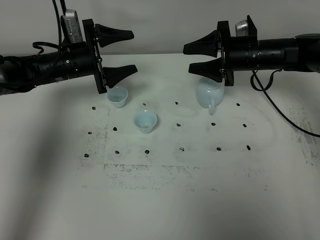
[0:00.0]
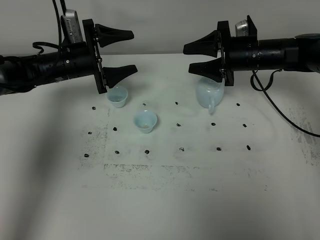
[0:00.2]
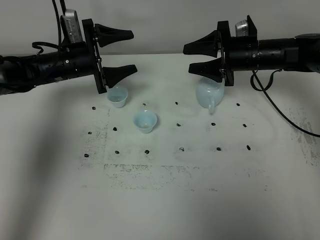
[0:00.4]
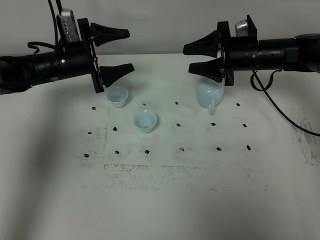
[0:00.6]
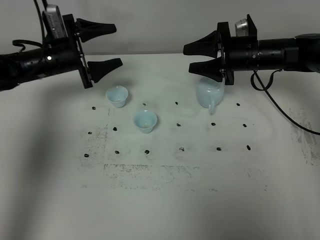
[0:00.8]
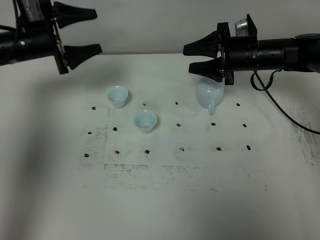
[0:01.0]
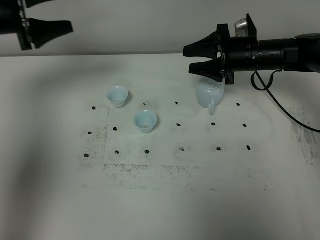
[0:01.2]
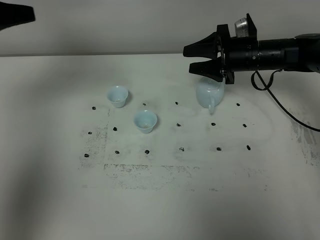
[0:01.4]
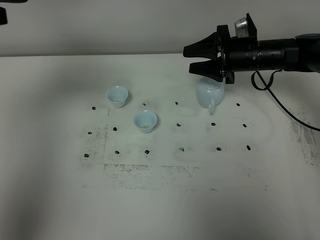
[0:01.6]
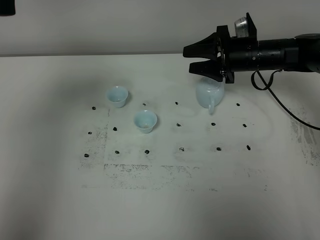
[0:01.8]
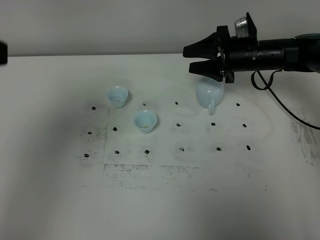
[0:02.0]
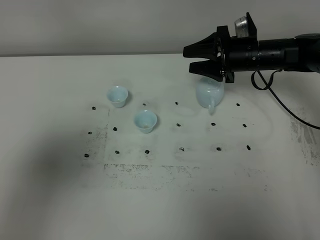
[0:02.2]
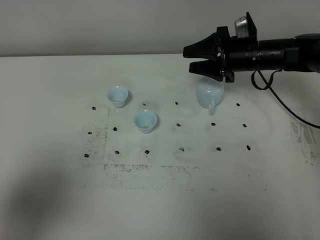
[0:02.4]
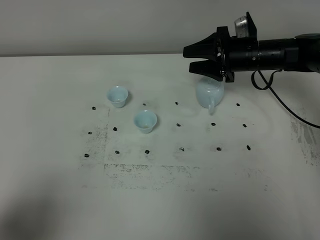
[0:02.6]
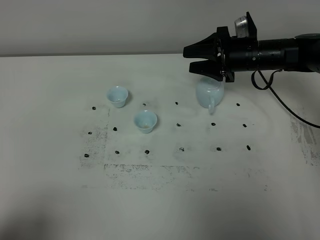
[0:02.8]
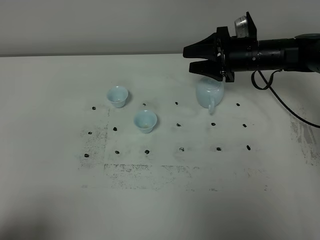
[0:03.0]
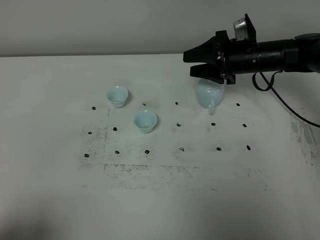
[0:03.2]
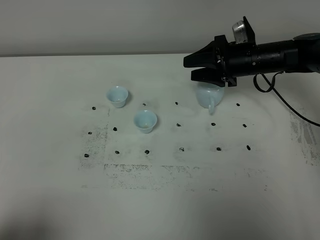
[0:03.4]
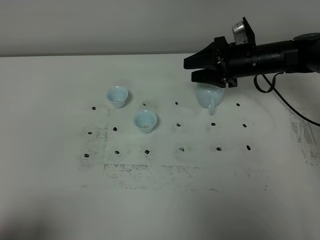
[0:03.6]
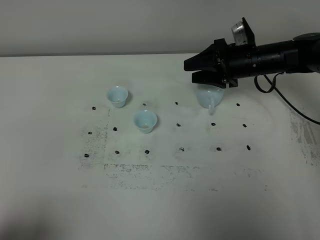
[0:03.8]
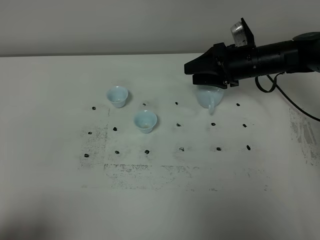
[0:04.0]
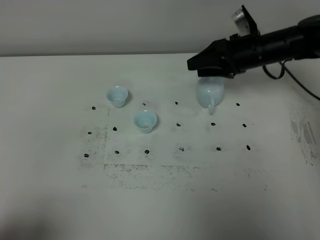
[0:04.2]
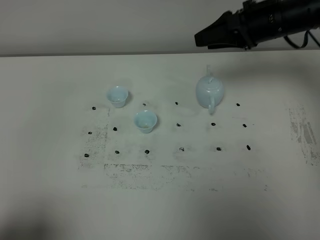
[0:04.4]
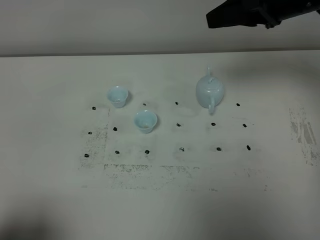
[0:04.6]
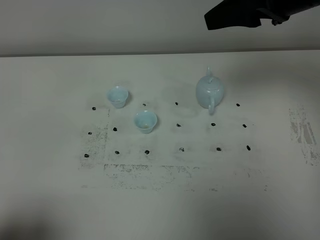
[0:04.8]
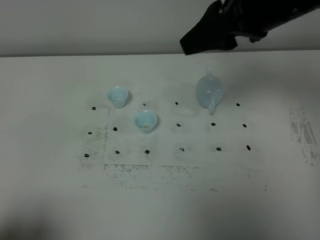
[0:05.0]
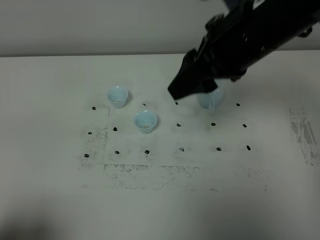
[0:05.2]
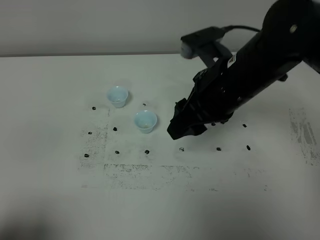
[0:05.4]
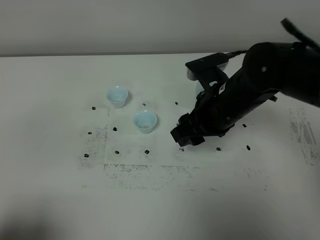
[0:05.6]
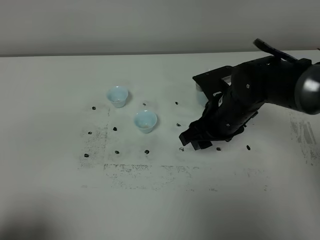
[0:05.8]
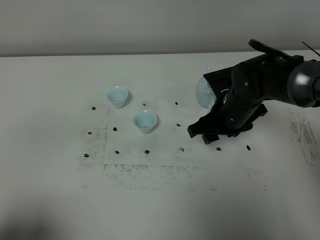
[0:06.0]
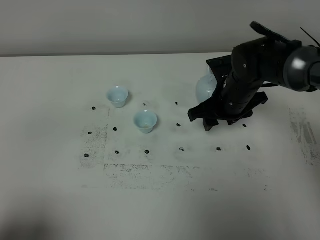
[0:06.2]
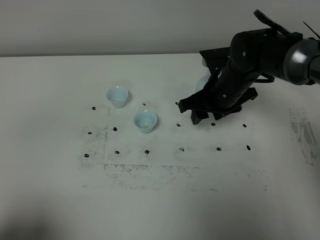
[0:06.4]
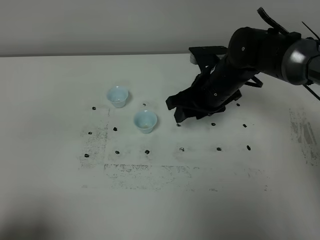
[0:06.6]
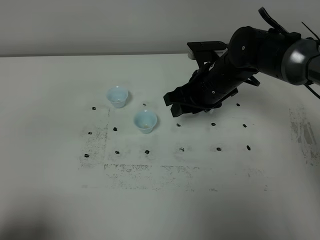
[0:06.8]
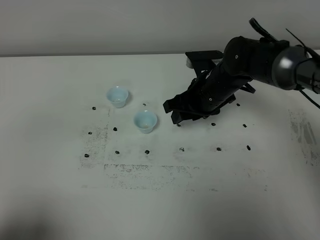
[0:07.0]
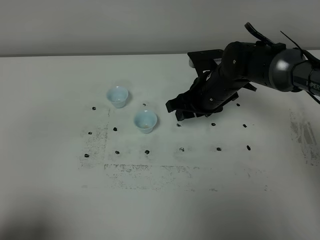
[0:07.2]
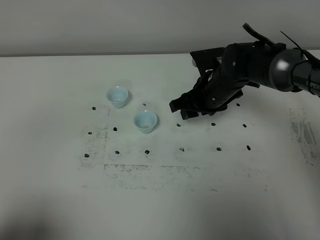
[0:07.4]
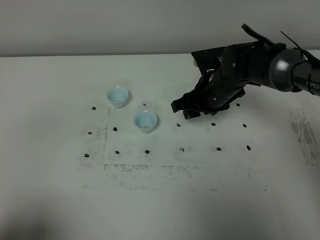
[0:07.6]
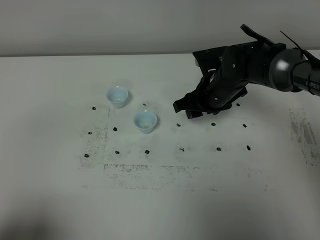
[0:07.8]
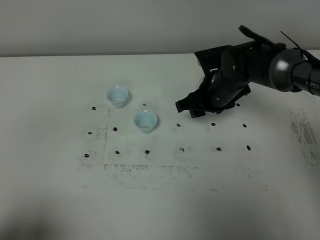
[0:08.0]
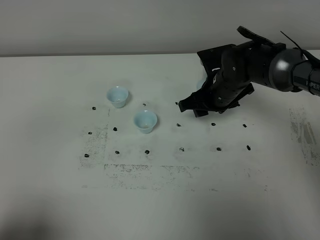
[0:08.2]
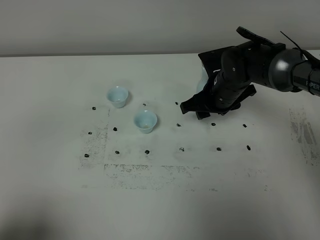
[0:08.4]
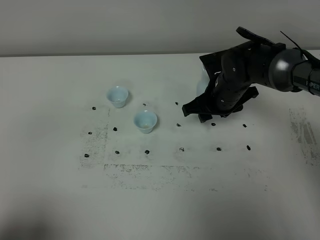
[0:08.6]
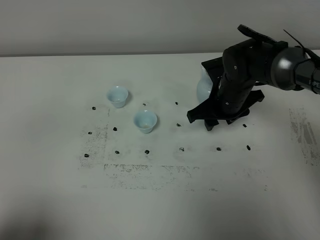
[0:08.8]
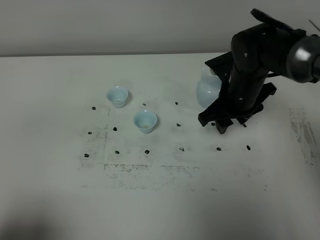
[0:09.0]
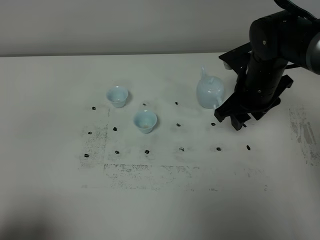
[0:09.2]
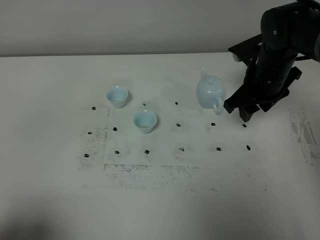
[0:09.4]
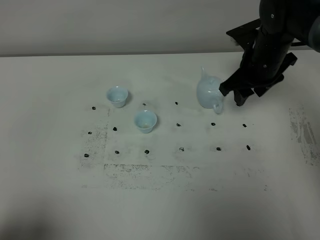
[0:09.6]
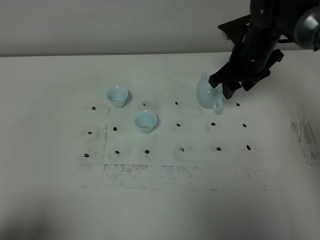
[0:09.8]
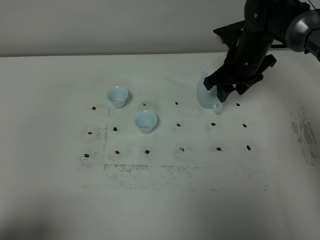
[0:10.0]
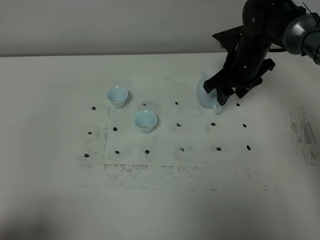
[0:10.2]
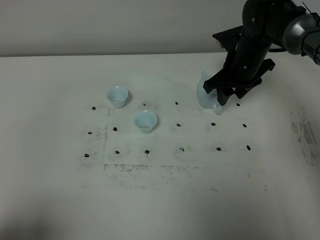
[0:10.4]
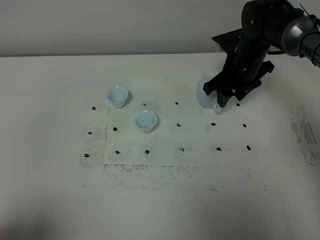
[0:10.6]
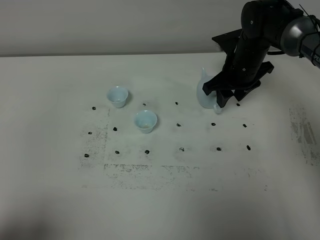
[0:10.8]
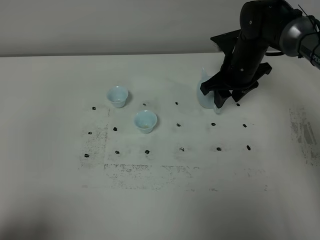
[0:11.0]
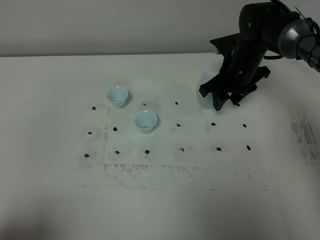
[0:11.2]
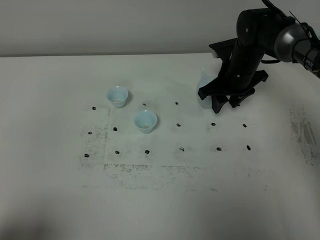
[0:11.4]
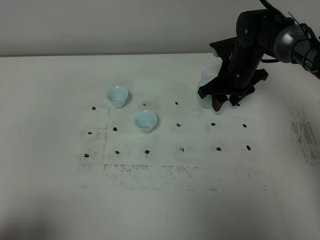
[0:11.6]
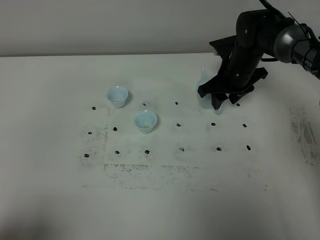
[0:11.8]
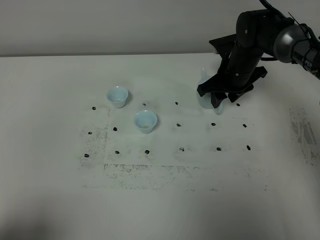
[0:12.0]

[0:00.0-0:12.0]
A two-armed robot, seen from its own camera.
Task of the whole recording: grasp the blue porcelain teapot and pour the tea into the two blue porcelain teacups one by one, put the blue porcelain teapot back in its original place.
0:00.0 to 0:01.6: The left gripper is displaced upward and backward by some 35 cm.
0:01.6 to 0:03.0: The left gripper shifts some 35 cm backward and downward.
0:03.0 to 0:04.4: The right gripper moves upward, roughly 15 cm.
0:04.4 to 0:06.0: The right gripper goes about 15 cm downward and to the left.
0:06.0 to 0:07.6: The right gripper shifts by some 5 cm.
0:07.6 to 0:09.0: The right gripper moves some 5 cm.
0:09.0 to 0:10.4: The right gripper travels forward by about 10 cm.
0:10.4 to 0:12.0: The grippers stay close to where they were, moving slightly.

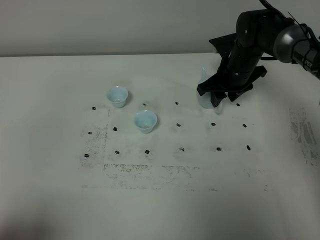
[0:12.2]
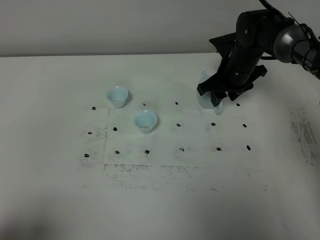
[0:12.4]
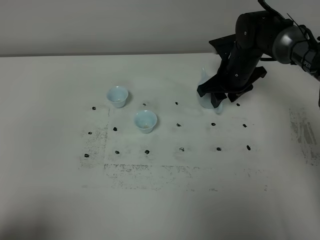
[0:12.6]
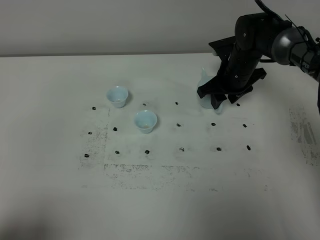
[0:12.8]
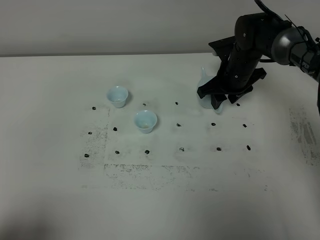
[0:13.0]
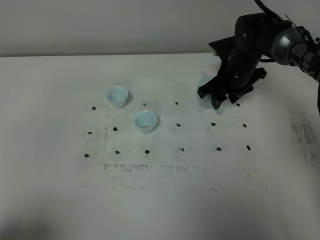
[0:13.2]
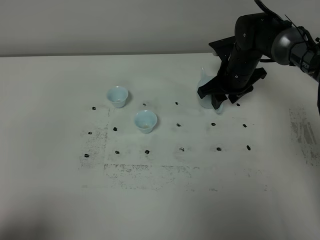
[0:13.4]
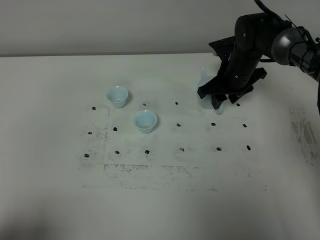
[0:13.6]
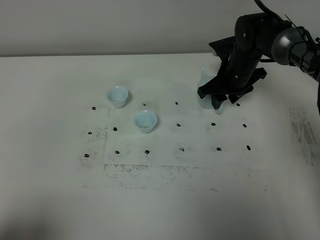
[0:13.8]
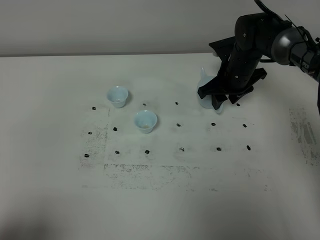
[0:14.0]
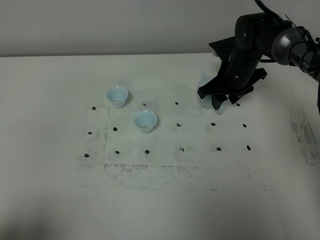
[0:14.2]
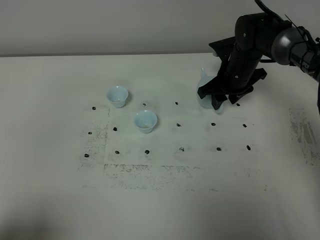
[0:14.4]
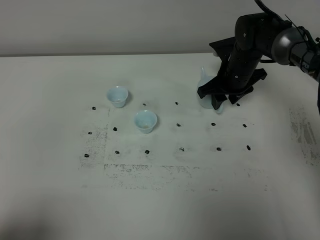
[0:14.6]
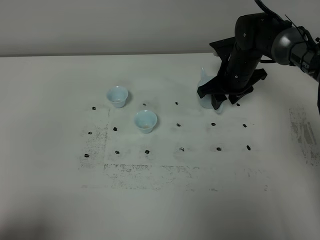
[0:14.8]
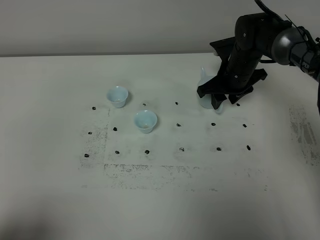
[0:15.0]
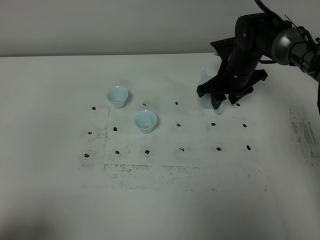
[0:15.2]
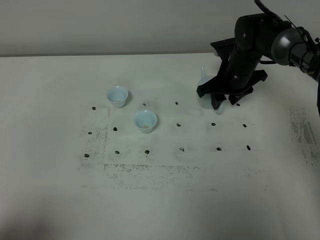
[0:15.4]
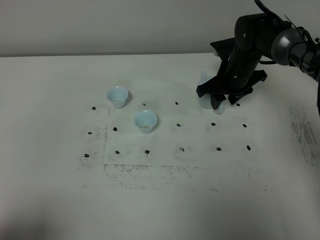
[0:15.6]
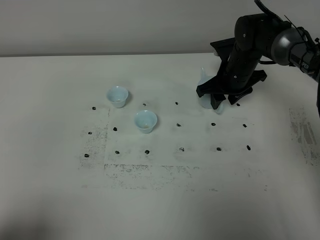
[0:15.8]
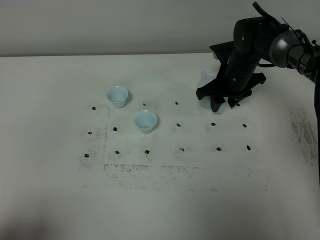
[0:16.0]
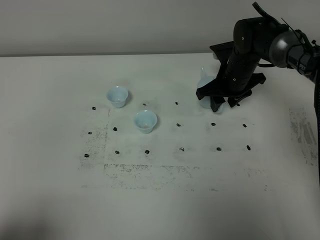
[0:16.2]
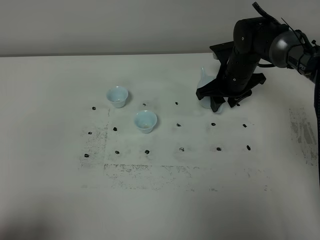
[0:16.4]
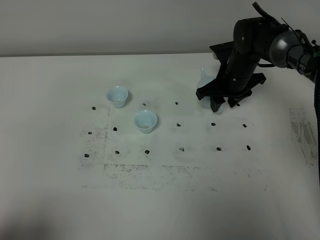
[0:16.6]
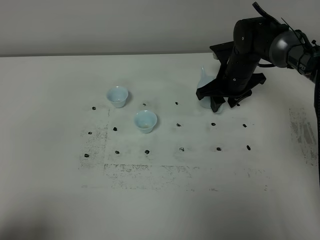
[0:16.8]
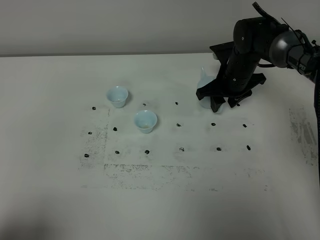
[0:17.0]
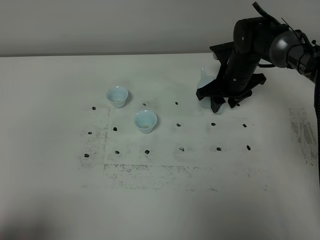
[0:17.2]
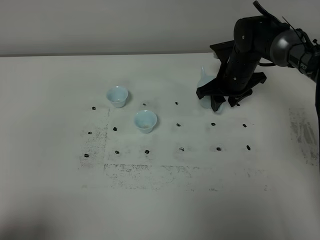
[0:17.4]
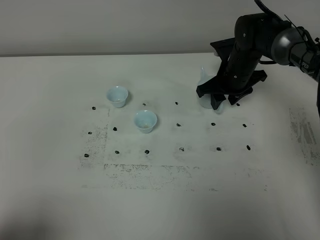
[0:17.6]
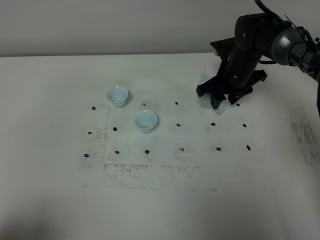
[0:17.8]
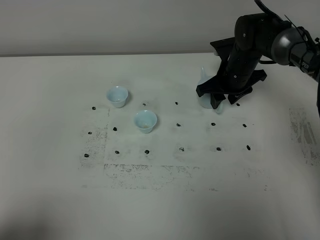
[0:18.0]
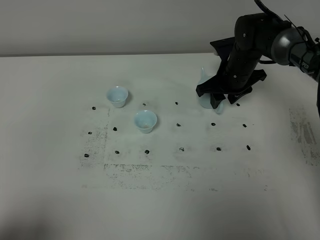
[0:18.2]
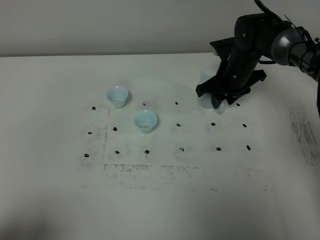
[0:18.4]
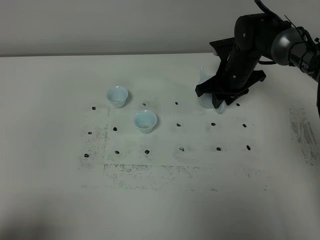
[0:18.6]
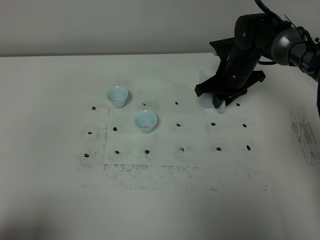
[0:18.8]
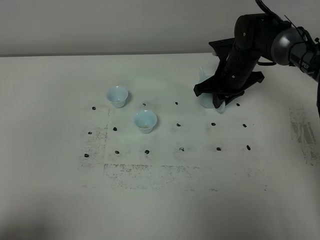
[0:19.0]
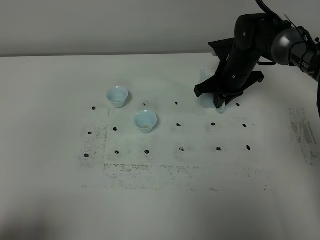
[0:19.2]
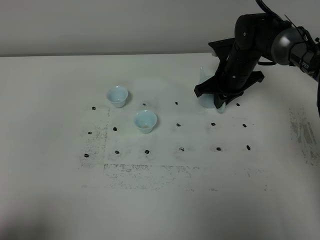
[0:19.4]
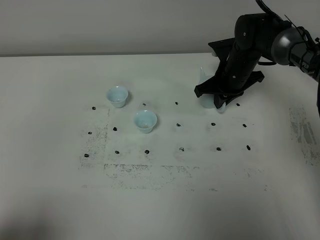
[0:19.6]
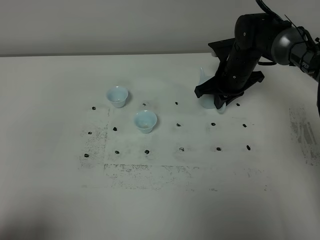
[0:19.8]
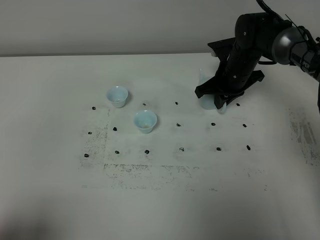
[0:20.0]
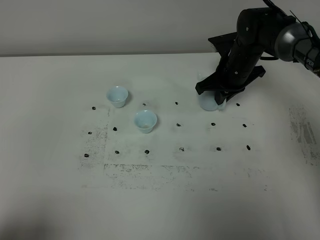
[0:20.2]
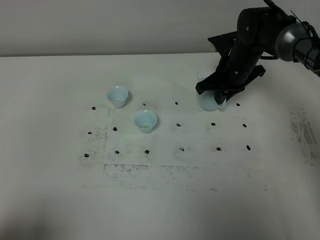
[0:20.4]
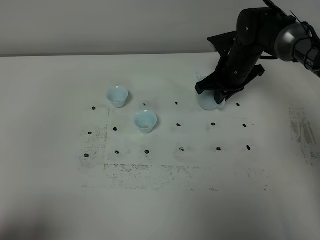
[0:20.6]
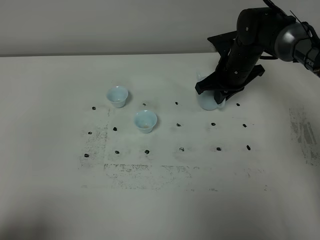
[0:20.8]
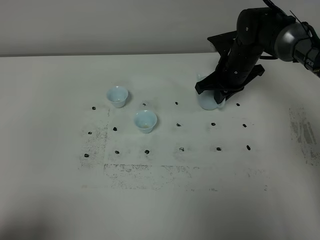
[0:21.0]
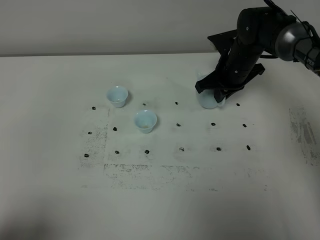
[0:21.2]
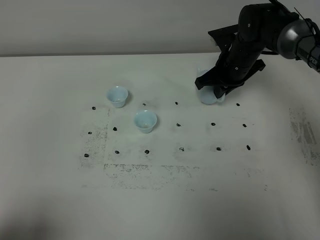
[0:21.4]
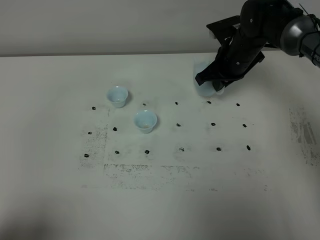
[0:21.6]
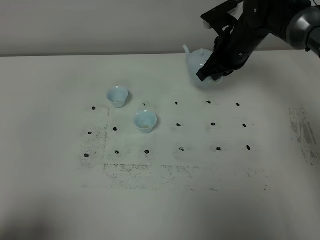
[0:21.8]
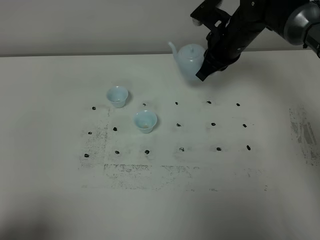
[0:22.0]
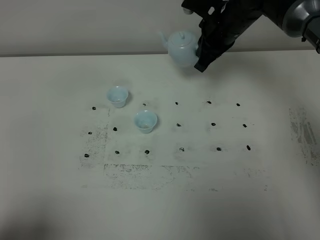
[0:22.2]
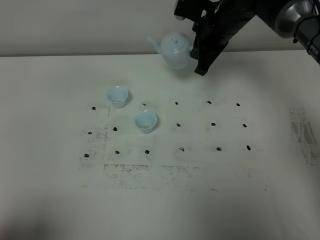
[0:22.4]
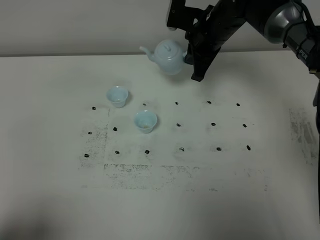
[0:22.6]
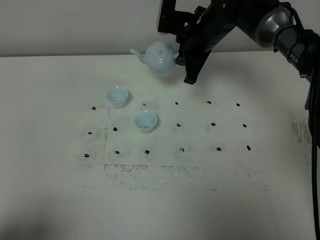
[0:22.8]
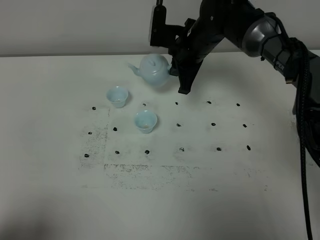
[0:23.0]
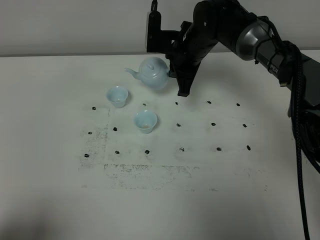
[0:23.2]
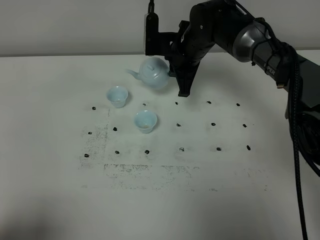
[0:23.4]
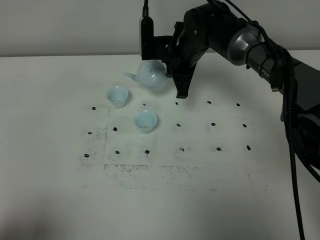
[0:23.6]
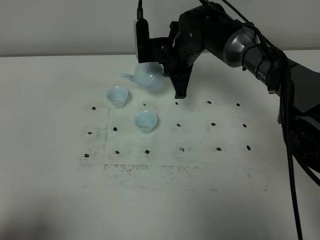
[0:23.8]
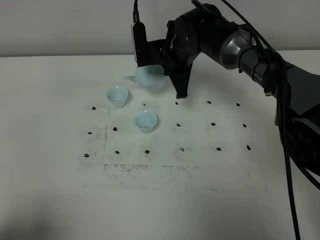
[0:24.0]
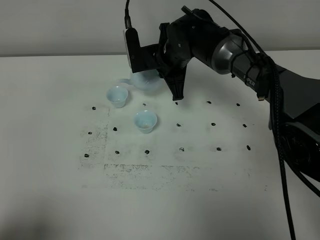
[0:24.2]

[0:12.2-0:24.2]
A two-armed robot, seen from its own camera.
Task of the whole recording: grasp the blue porcelain teapot and pour the tea into the two blue porcelain teacups one by one, put the blue porcelain teapot back in its original place.
Step, 0:12.2 to 0:21.4: Pick up the teapot with the right gripper.
0:12.2 to 0:15.2: The two grippers keep their place.
0:15.2 to 0:18.2: Both grippers stay put.
0:18.2 to 0:19.8: The right gripper closes.
0:19.8 to 0:21.2: There are only small adjustments of the grippers.
0:21.2 to 0:22.6: The right gripper travels upward and to the left by roughly 10 cm.
0:22.6 to 0:24.2: The right gripper goes some 5 cm to the left.
